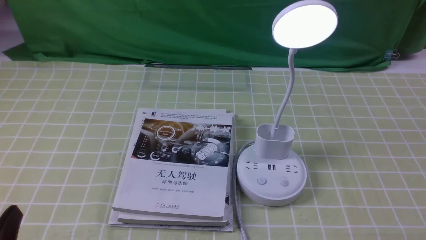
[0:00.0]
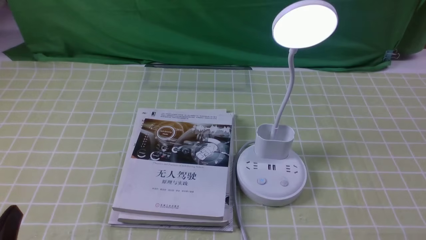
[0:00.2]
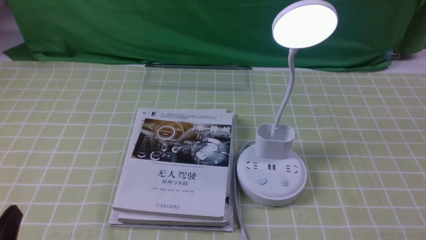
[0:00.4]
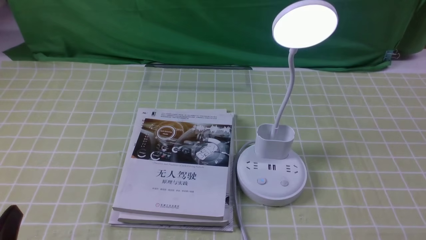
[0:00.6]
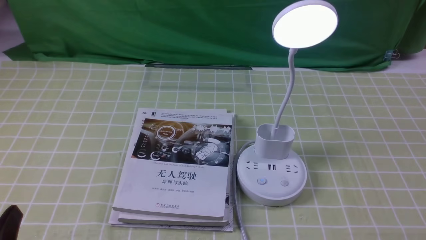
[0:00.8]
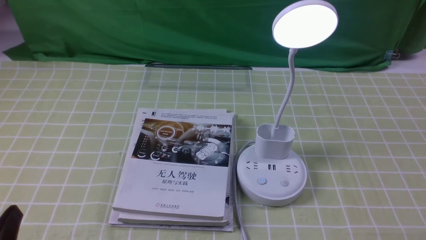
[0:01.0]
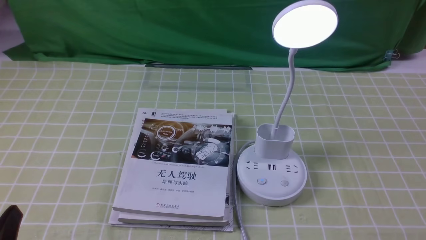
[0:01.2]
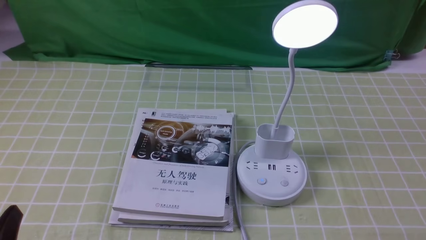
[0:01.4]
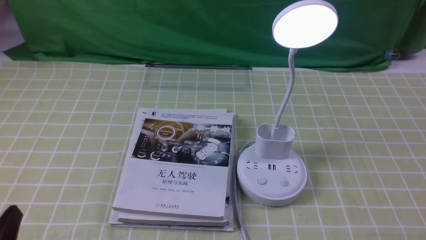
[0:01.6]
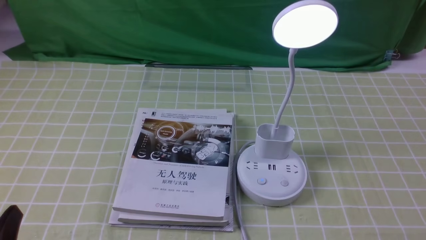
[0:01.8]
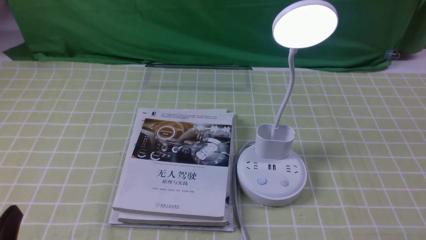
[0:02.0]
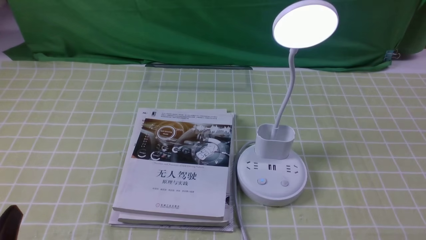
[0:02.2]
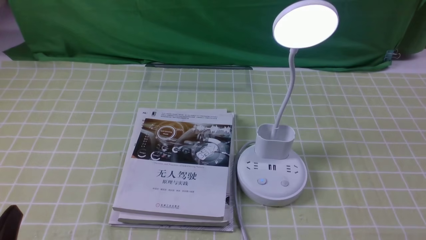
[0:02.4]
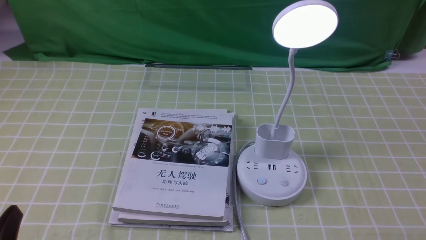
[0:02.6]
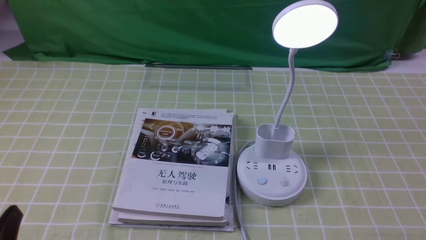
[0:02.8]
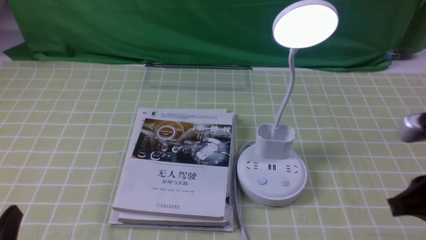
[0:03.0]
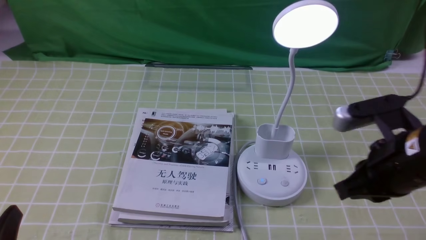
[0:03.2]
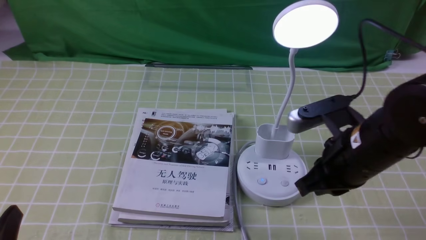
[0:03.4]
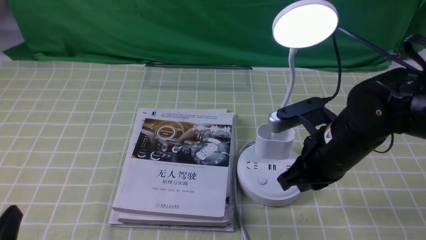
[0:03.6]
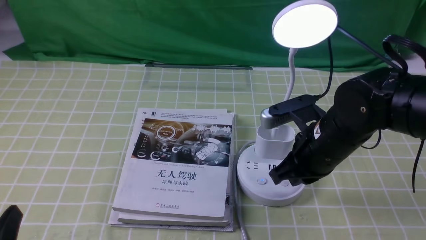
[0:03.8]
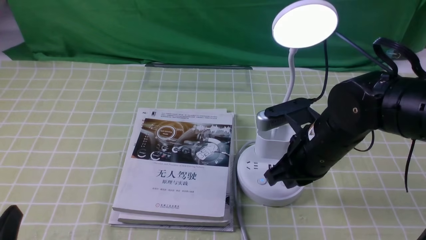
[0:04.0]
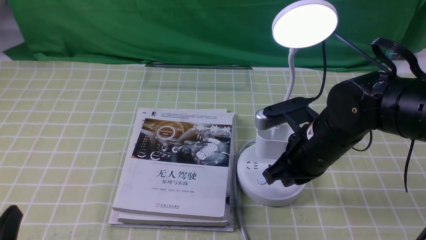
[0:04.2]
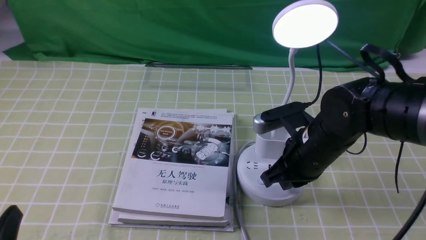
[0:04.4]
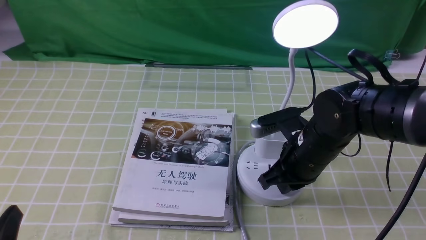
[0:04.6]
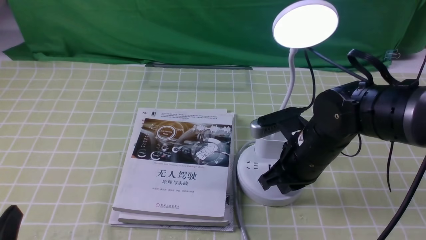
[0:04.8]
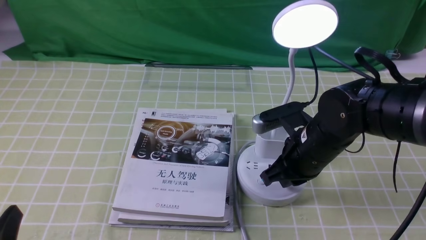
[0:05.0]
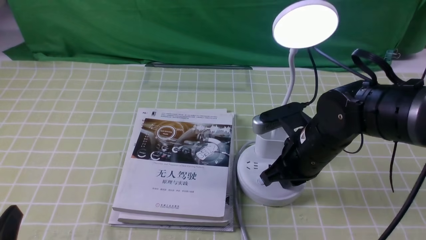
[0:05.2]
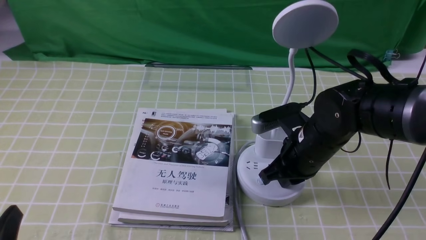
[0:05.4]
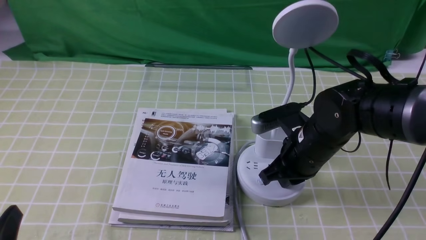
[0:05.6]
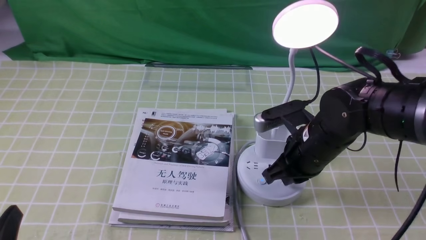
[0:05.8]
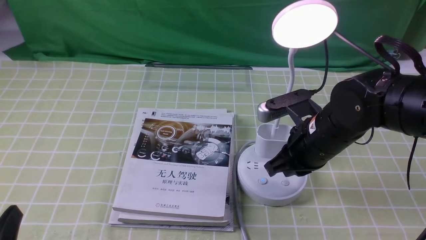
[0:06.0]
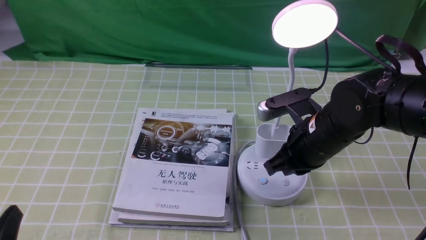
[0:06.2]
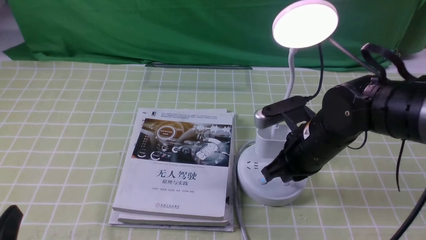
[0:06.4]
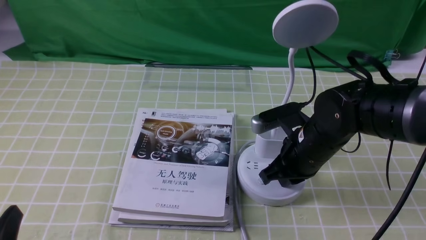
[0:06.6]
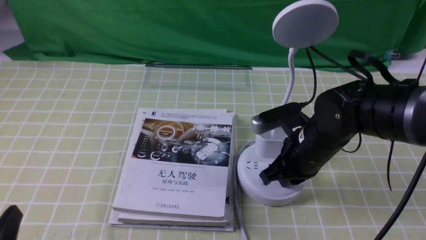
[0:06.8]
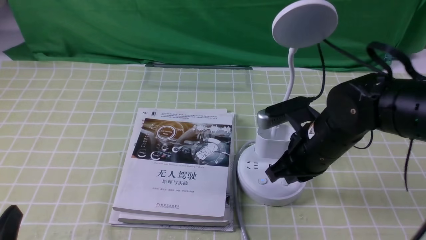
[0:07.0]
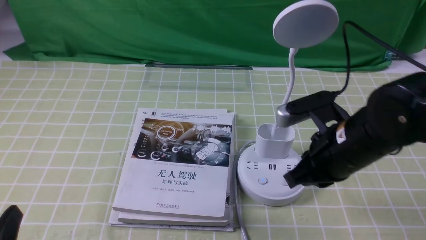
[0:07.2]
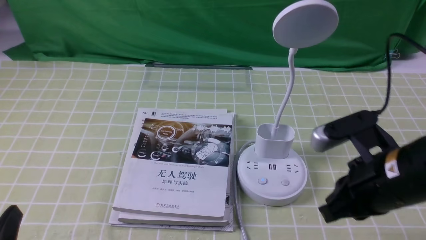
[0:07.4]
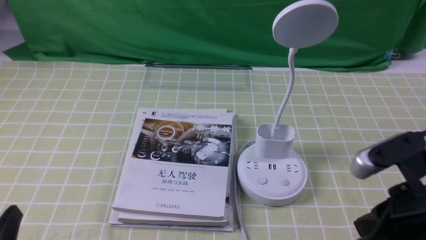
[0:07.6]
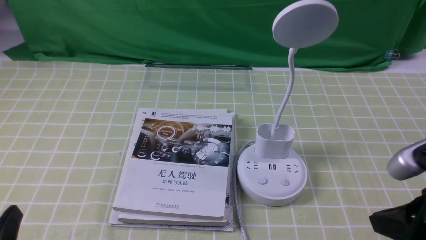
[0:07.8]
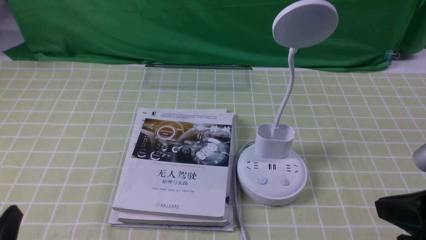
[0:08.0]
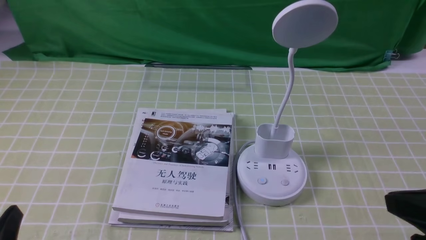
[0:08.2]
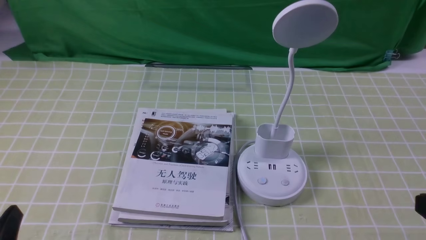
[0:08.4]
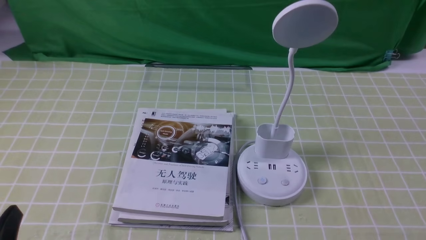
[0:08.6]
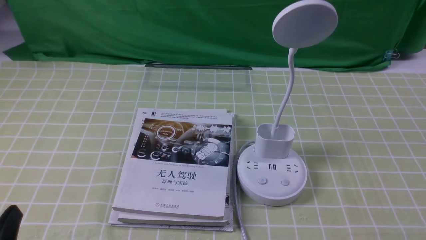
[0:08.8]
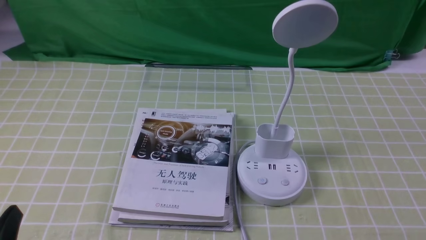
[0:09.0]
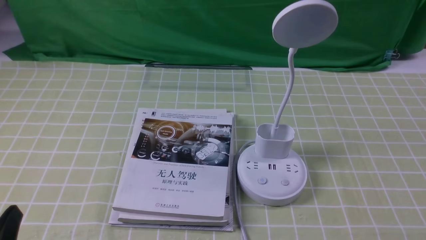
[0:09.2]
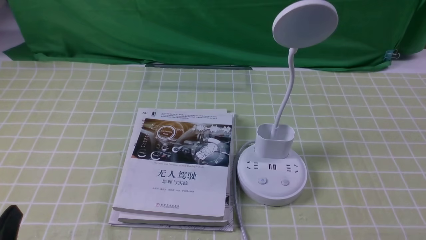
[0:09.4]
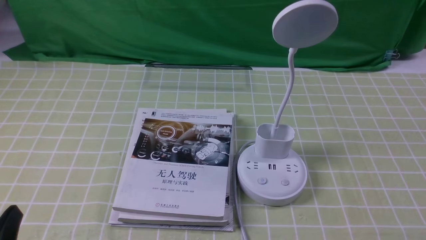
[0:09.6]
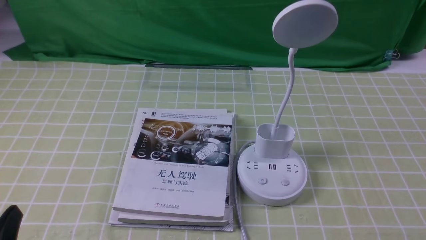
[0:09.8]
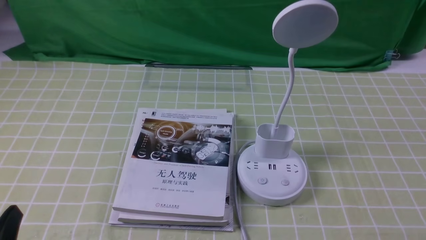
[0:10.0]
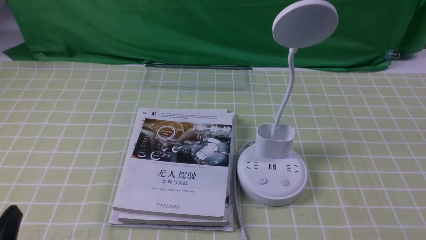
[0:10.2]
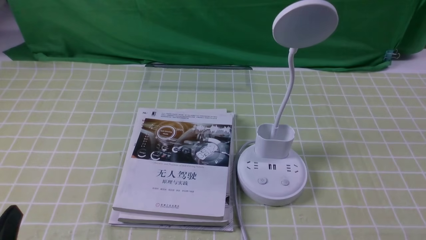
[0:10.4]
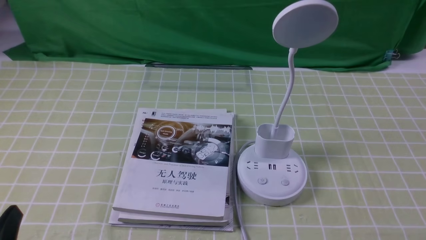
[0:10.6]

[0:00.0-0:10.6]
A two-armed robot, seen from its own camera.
Task of the whole recording: turn off the desk lamp on the green coffee tablecloth by hand.
Step, 0:00.0 to 0:07.0: use the right arm to press the button switch on the lamp holder.
0:01.6 to 0:03.0: The right gripper moves forward, upward and to the left, roughly 15 cm, and closes its fingers.
0:03.0 to 0:04.6: The right gripper goes approximately 20 cm to the left, forward and downward.
0:04.6 to 0:06.0: The grippers make only small movements.
0:06.0 to 0:07.6: The right gripper goes some 15 cm backward, to the right and upward.
0:07.6 to 0:09.0: The right gripper shifts some 15 cm backward, to the right and downward.
0:09.0 to 0:10.6: The two grippers keep their place.
